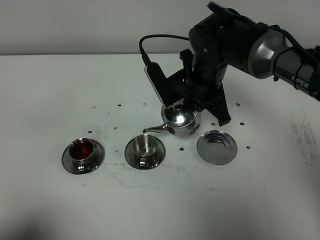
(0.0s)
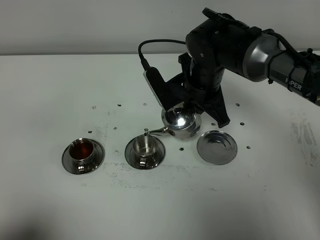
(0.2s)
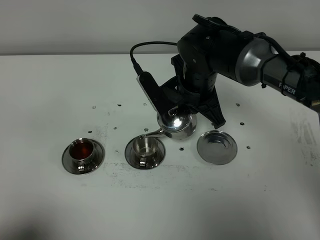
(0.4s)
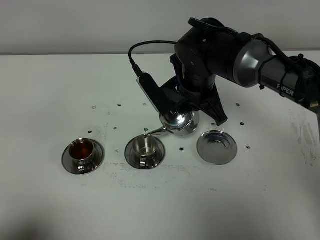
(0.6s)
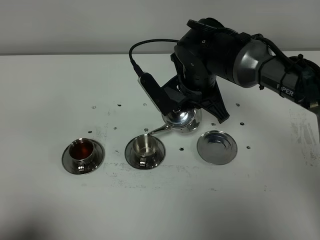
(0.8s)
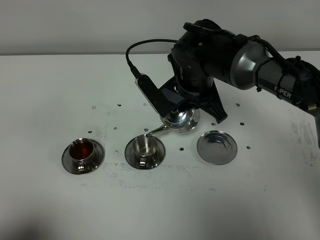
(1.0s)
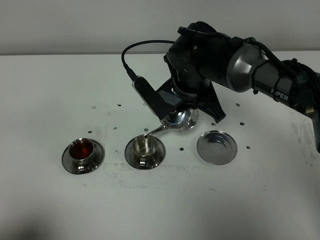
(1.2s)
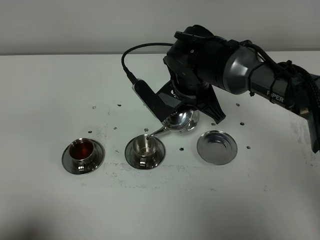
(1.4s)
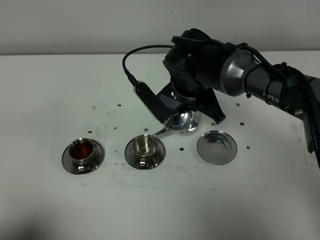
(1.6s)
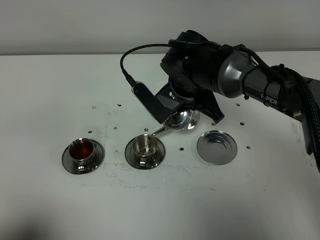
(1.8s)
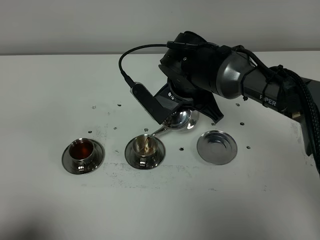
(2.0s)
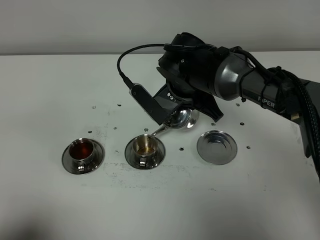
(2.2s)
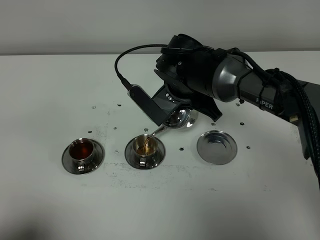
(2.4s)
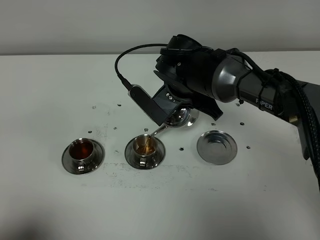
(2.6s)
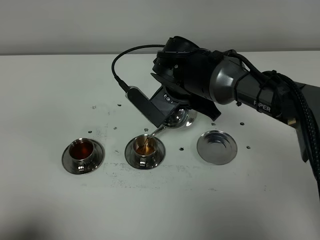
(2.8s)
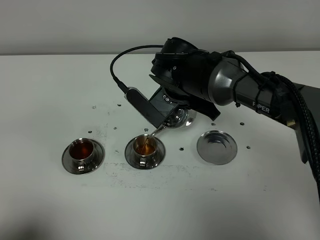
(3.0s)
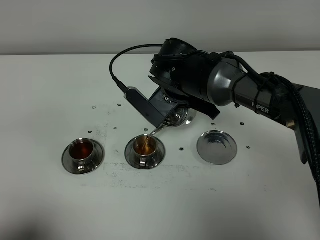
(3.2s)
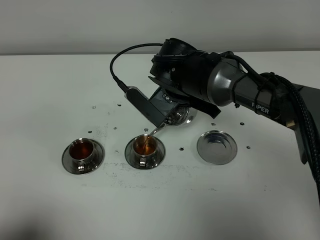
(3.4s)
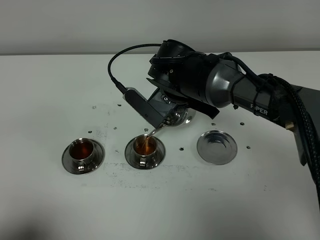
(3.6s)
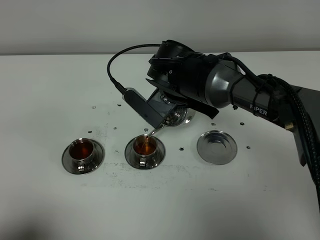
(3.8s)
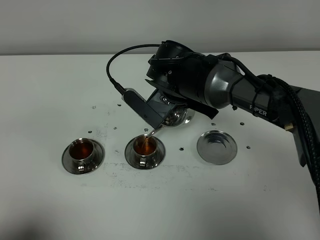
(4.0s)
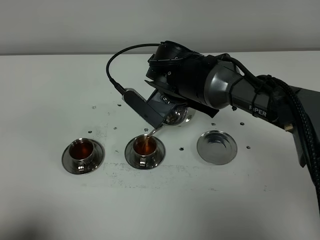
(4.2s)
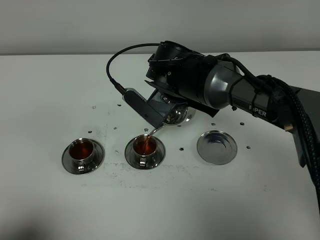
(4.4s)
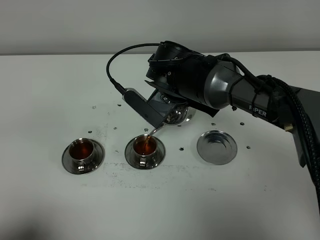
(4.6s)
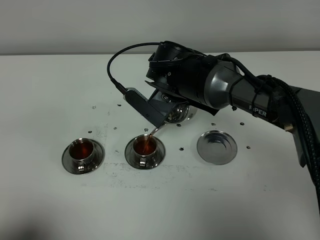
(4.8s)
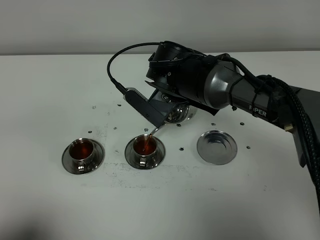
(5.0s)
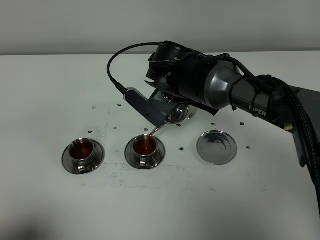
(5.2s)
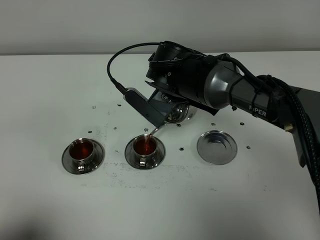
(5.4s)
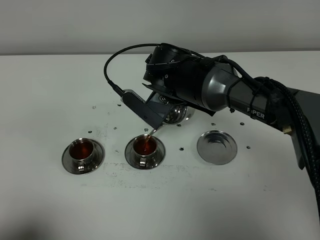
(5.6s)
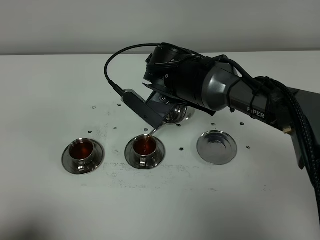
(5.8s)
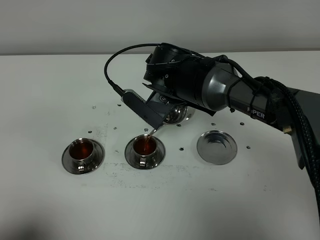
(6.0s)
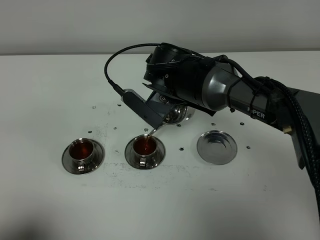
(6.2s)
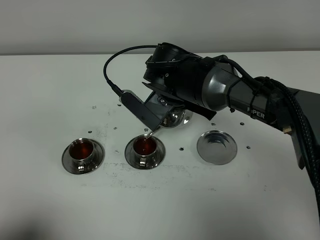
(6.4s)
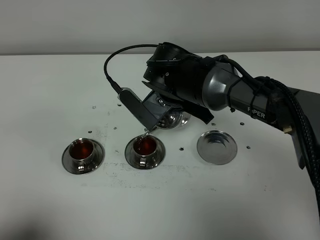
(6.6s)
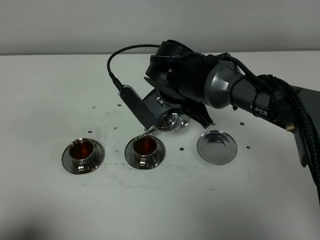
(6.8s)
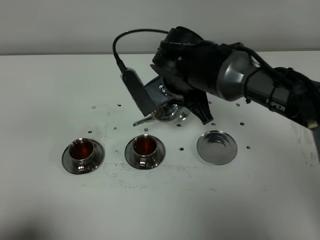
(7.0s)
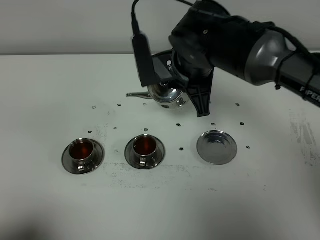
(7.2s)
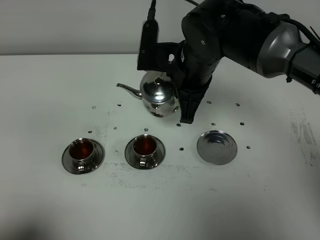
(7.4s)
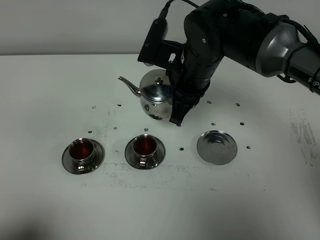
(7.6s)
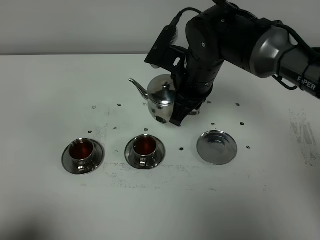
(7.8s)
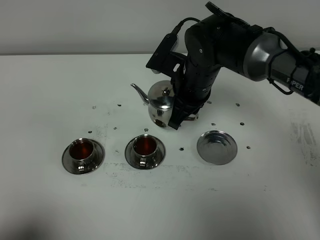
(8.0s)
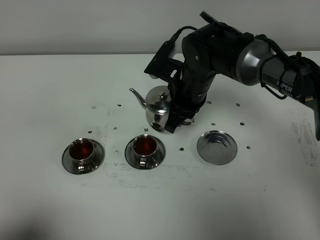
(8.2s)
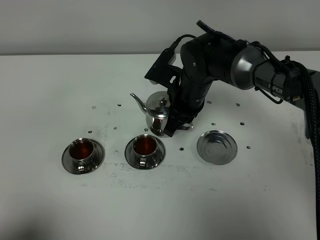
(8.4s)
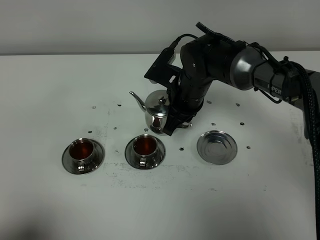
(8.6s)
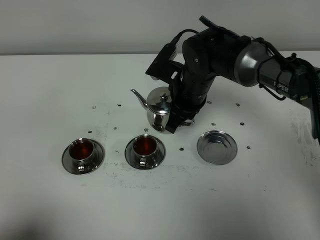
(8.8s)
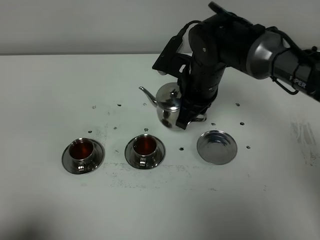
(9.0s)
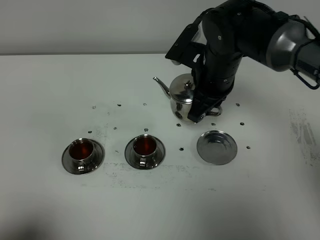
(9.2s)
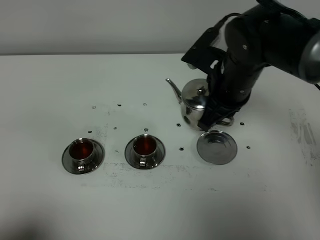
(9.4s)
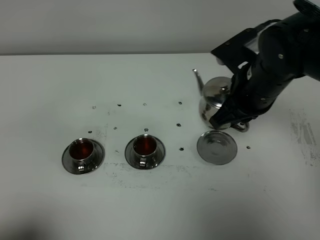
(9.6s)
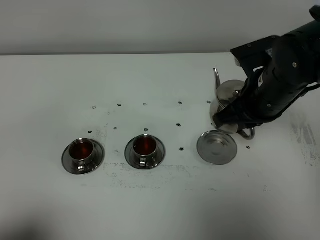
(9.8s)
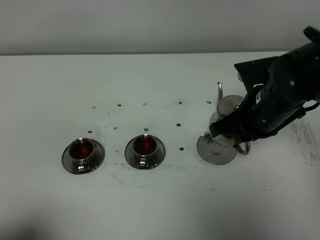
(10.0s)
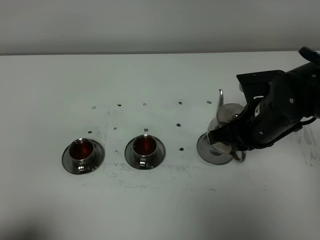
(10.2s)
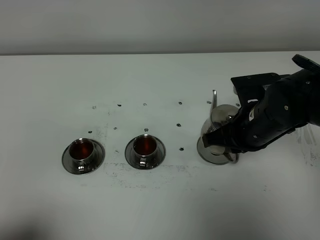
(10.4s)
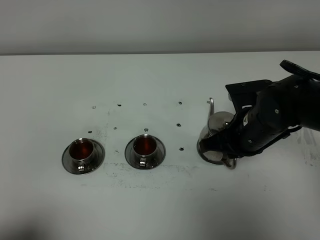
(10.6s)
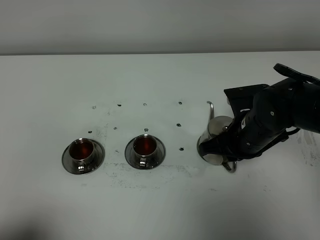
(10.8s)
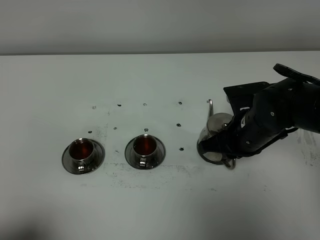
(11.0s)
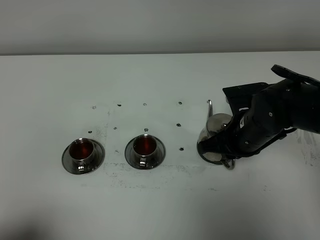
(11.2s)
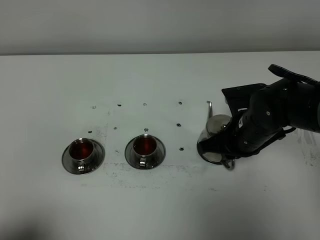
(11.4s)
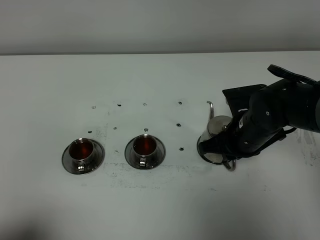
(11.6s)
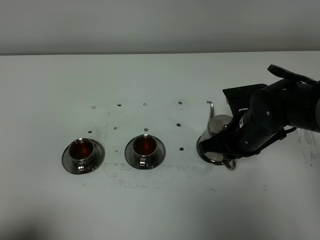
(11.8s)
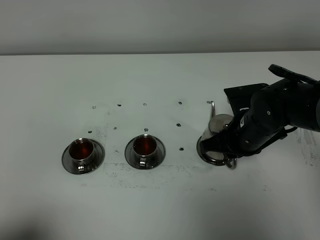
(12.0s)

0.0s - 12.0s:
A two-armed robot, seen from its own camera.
Task of the whole recording: grasp the stainless steel teapot and pour the tea into the two stainless steel teacups one by one, put the stainless steel teapot back in its original place.
Step, 0.0s - 6.8s: Pour tea into the teacup with the right gripper.
0.0s - 1.6s: The grippers make only small movements.
1.6s - 3.0s: There are only small adjustments of the grippers.
3.0s - 4.4s: Both grippers stay put.
4.4s - 6.0s: The two grippers keep their place.
6.0s - 7.6s: The right gripper ends up about 5 cm from where it was.
9.0s - 10.4s: The right gripper travels backward and to the right by roughly 10 cm.
10.4s - 12.0s: The grippers make only small movements.

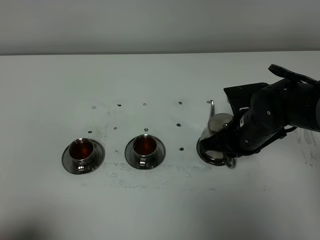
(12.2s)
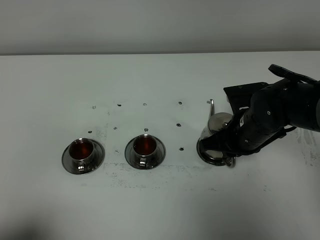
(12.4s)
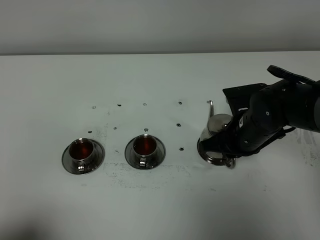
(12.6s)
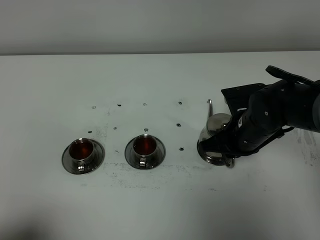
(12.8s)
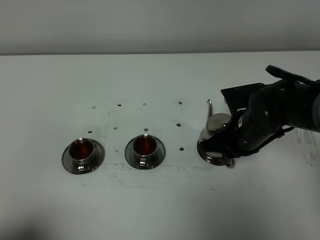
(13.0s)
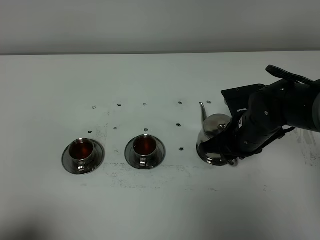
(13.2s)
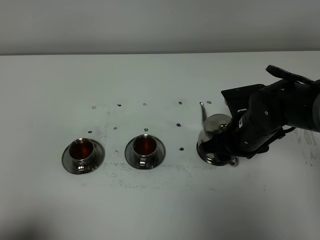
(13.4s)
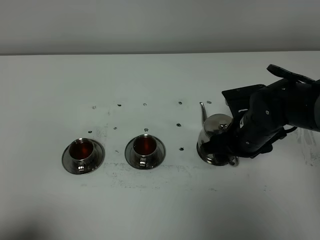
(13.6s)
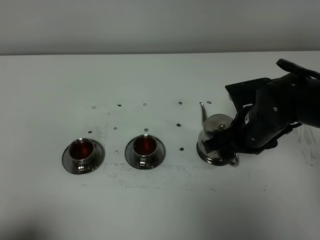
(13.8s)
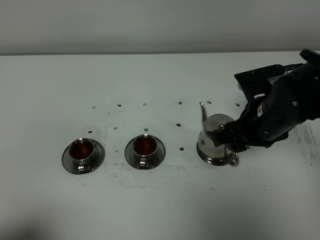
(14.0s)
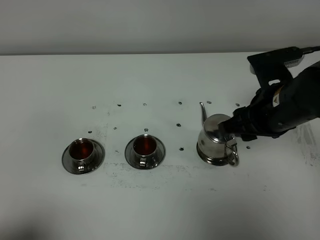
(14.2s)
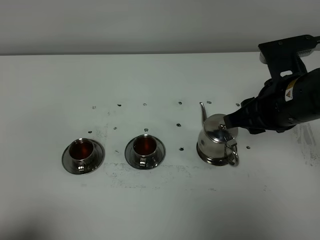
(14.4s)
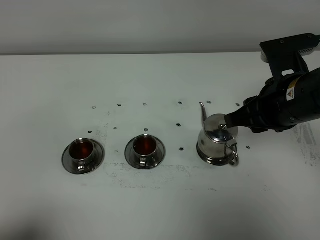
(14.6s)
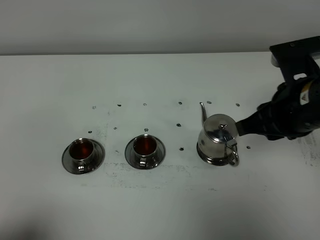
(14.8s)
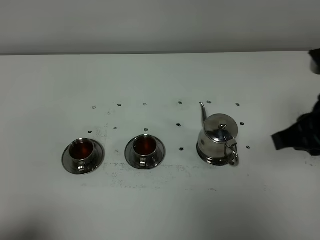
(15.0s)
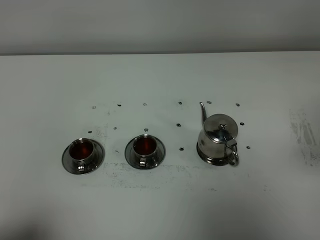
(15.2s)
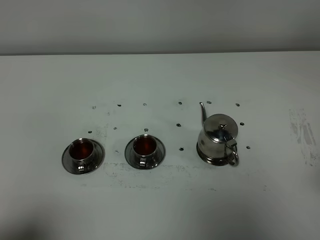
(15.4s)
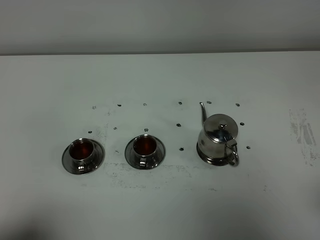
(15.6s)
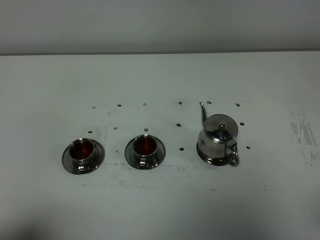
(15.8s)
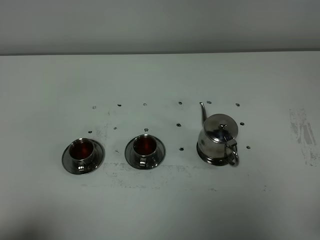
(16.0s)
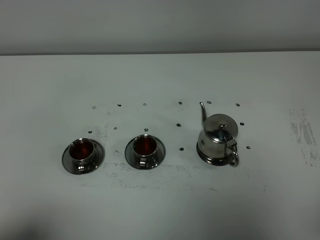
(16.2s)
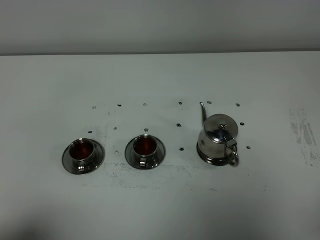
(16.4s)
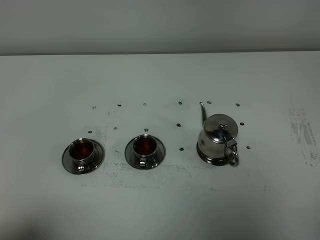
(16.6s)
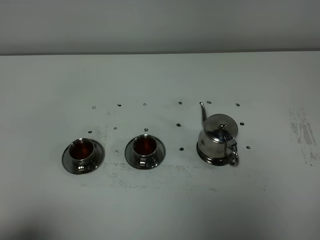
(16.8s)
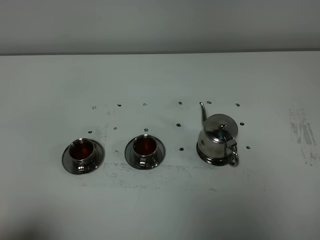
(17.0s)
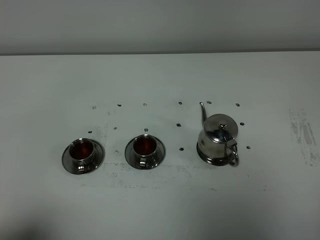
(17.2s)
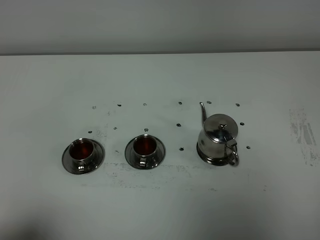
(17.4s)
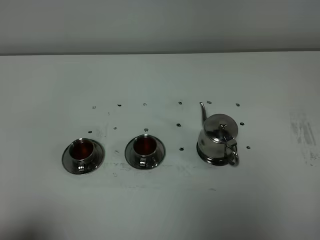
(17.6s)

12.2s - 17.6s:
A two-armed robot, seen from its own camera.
Task of the whole recording: grasp the stainless steel teapot and pour the tea into the two stainless steel teacups one by one, put the stainless steel teapot back in its original place.
12.2s - 13.6s: The right gripper opens its fingers.
13.6s - 15.0s: The right gripper heads upward, backward and to the right, covering about 20 cm, and closes its fingers.
15.0s - 16.2s: The right gripper moves backward and to the right, roughly 15 cm.

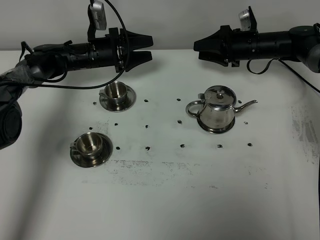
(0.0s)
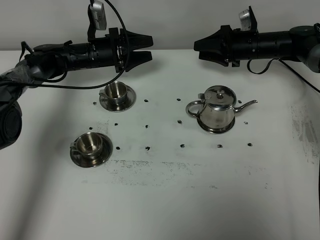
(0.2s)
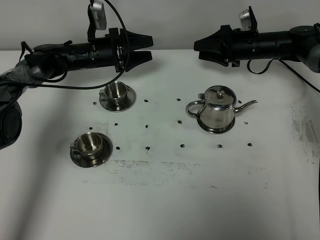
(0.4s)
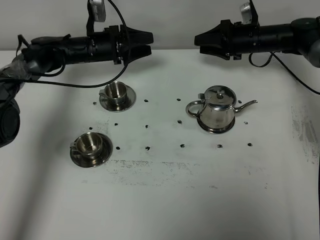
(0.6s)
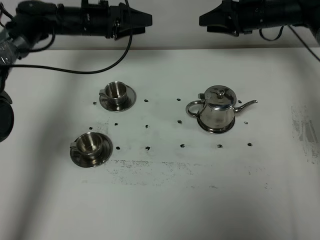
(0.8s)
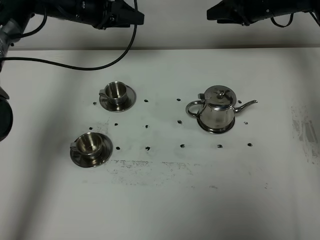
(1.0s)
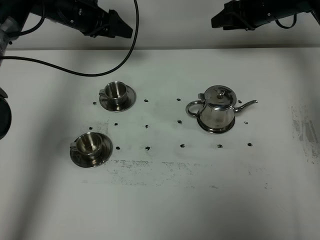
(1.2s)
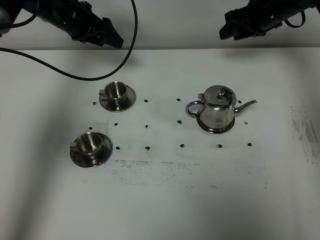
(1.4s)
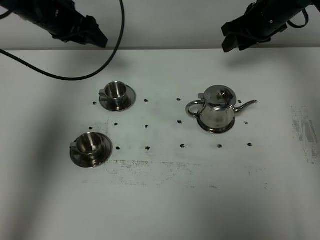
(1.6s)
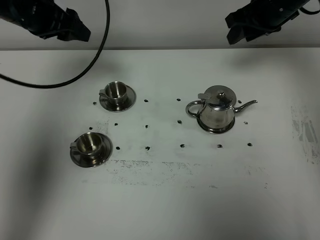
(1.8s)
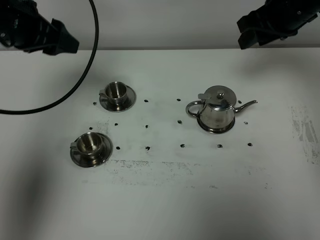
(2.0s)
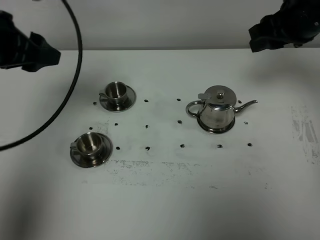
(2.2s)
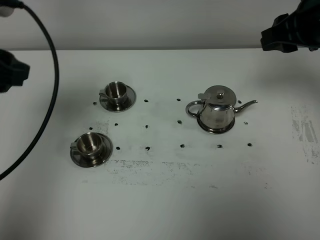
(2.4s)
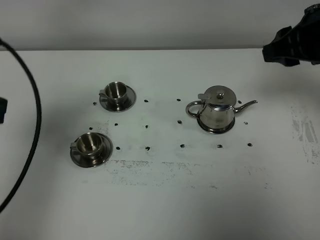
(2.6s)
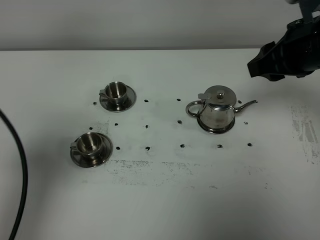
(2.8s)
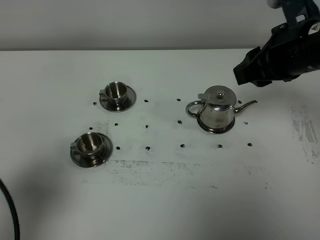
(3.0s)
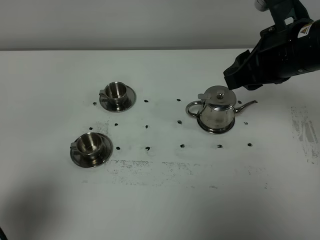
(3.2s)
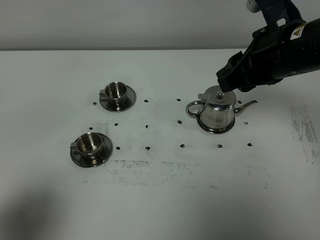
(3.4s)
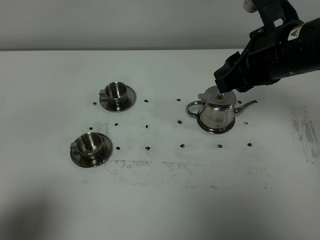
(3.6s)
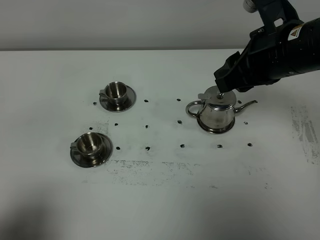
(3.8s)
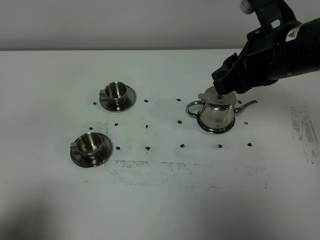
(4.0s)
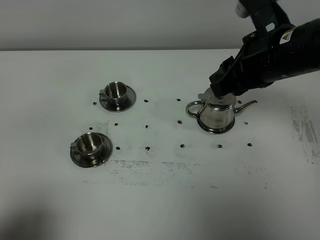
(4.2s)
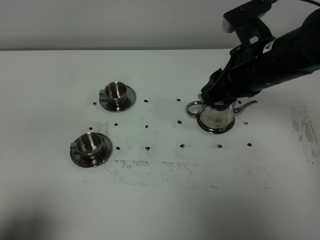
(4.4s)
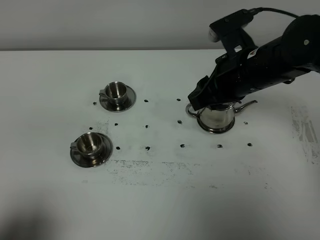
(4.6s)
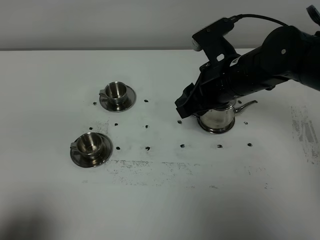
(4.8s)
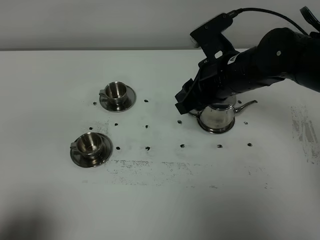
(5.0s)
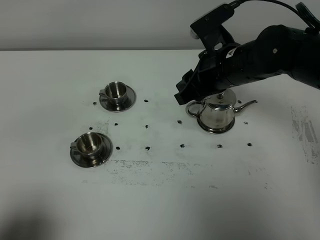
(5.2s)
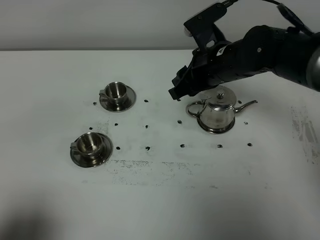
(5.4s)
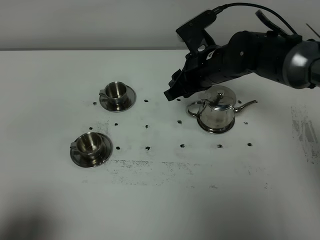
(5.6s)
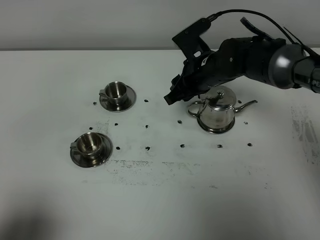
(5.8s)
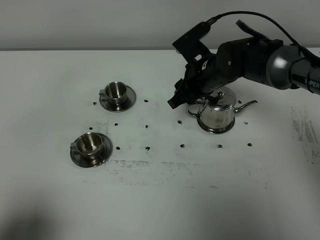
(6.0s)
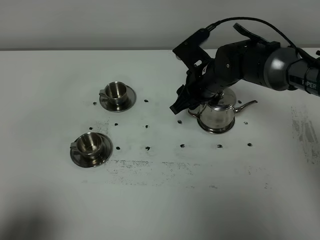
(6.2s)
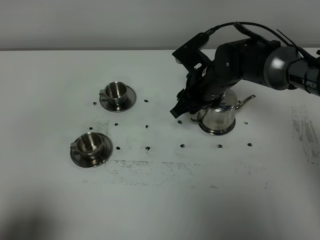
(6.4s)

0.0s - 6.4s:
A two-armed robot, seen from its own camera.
Task of the whole recording: grasp the stainless steel teapot and pour the tea into the two stainless steel teacups one by one, put the stainless steel teapot back in its original place.
0.0s - 1.6s: Both grippers move upward, roughly 15 cm.
1.6s - 3.2s: The right gripper goes approximately 20 cm backward; the left gripper moves backward, roughly 40 cm.
3.2s - 4.8s: The right gripper moves downward and to the left, roughly 10 cm; the left gripper travels backward by roughly 5 cm.
4.8s - 6.4s: The right gripper heads downward and forward, covering approximately 10 cm.
